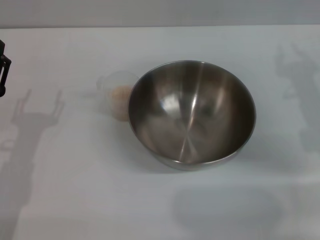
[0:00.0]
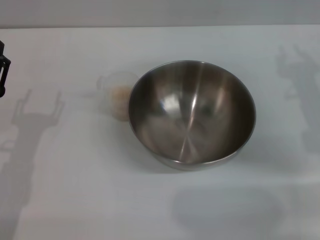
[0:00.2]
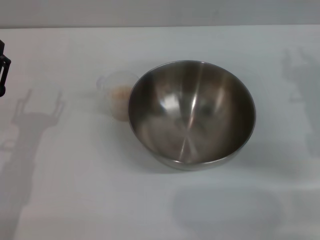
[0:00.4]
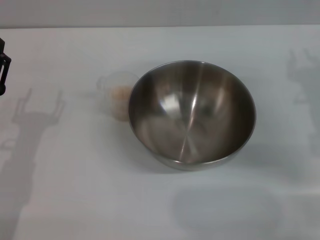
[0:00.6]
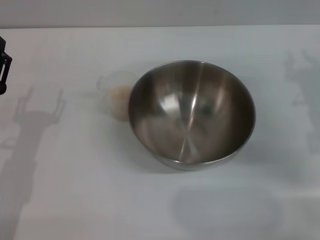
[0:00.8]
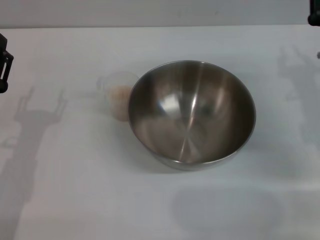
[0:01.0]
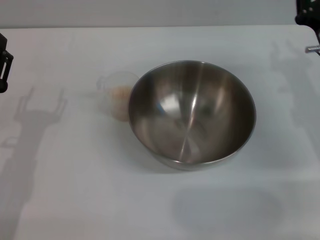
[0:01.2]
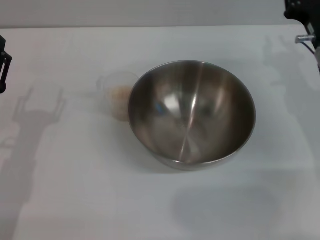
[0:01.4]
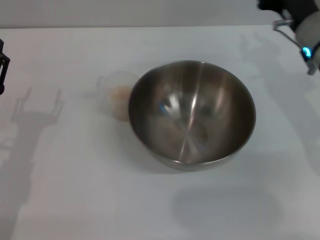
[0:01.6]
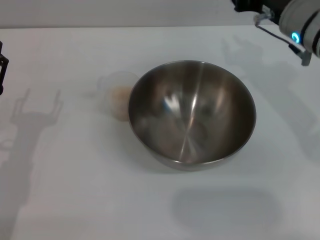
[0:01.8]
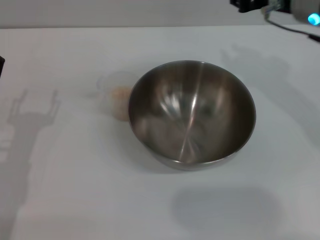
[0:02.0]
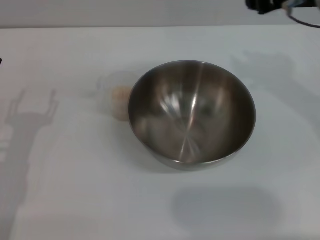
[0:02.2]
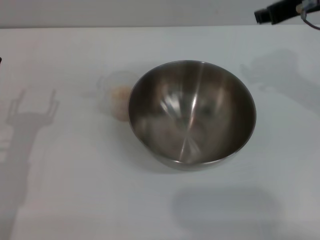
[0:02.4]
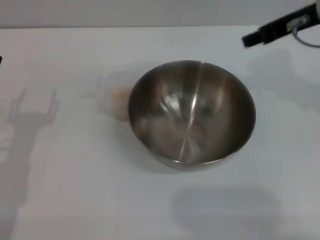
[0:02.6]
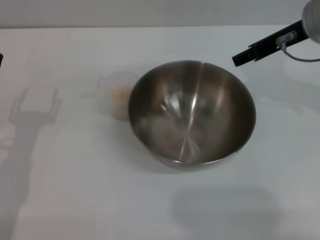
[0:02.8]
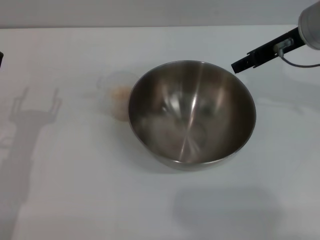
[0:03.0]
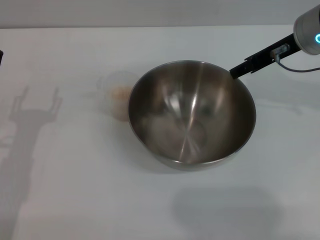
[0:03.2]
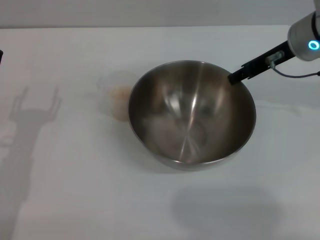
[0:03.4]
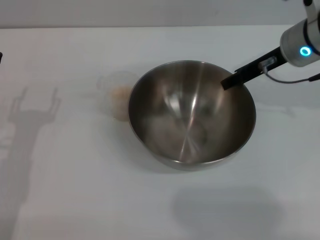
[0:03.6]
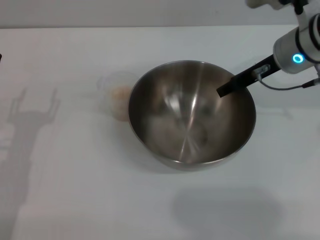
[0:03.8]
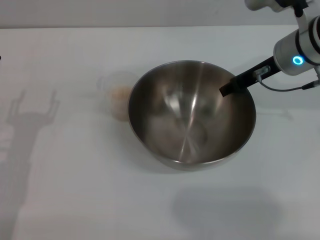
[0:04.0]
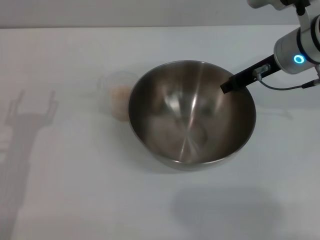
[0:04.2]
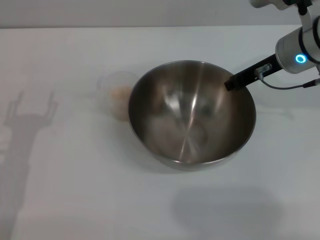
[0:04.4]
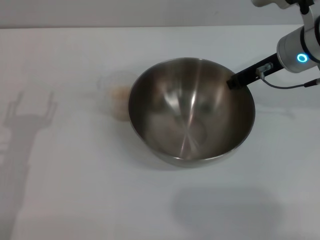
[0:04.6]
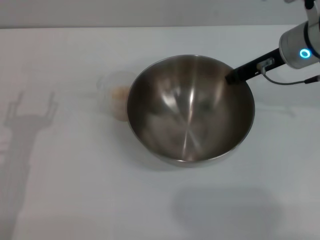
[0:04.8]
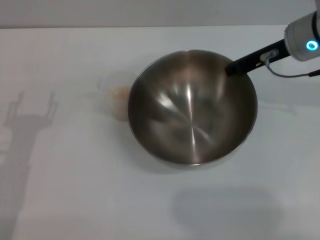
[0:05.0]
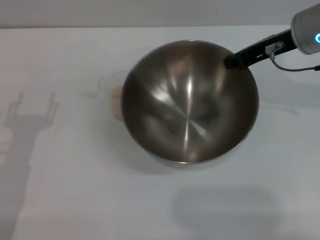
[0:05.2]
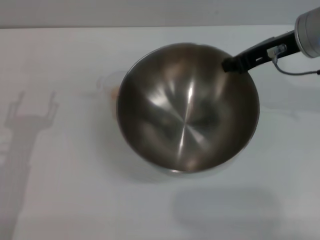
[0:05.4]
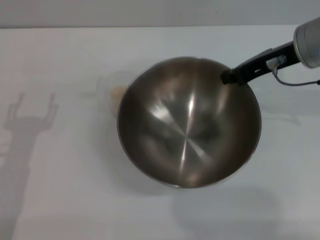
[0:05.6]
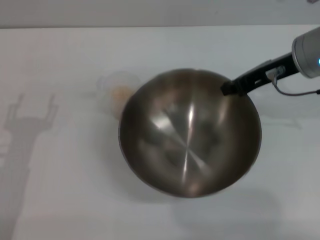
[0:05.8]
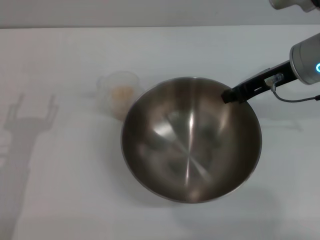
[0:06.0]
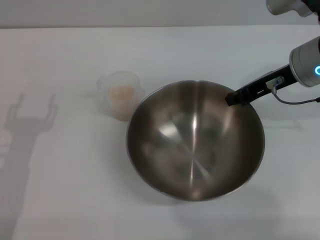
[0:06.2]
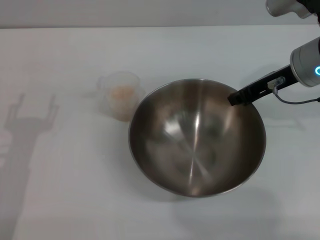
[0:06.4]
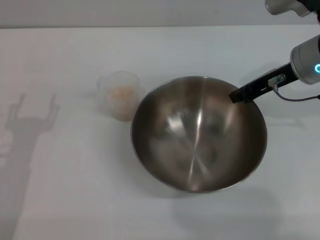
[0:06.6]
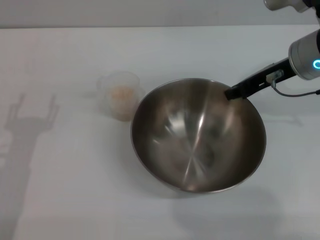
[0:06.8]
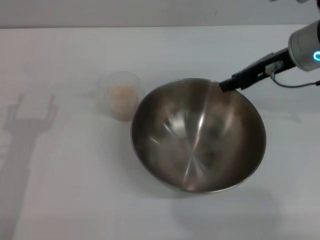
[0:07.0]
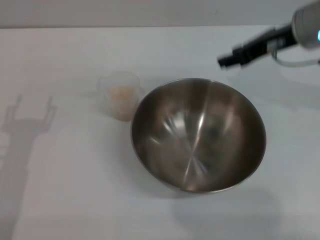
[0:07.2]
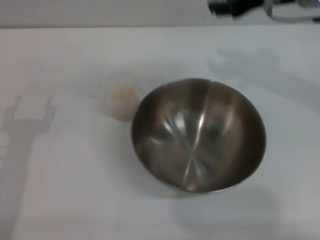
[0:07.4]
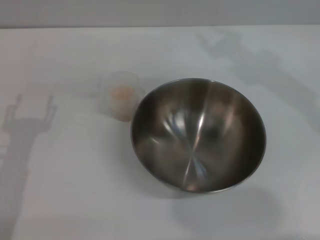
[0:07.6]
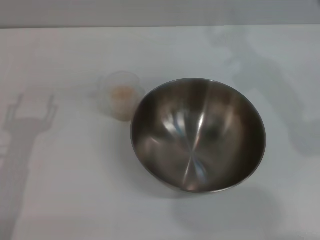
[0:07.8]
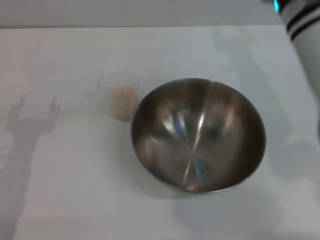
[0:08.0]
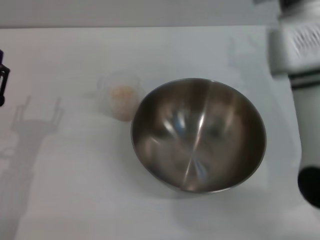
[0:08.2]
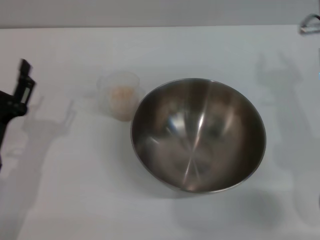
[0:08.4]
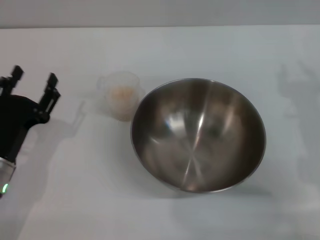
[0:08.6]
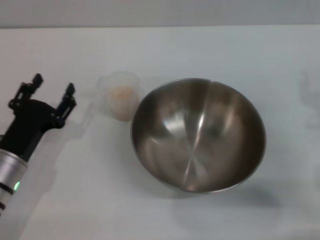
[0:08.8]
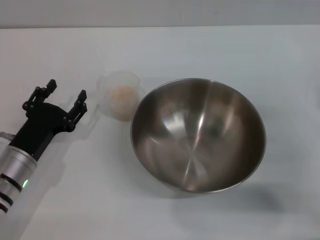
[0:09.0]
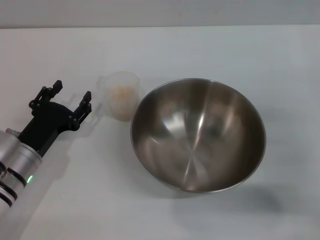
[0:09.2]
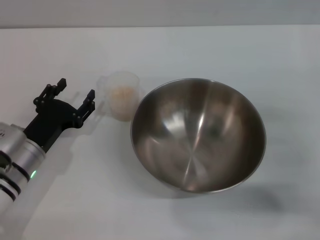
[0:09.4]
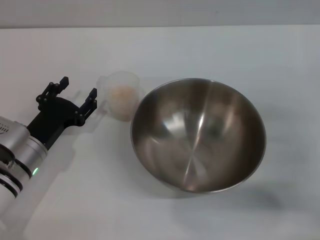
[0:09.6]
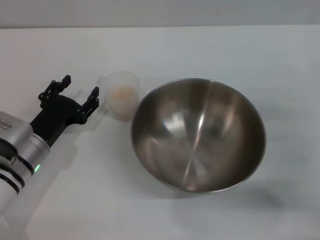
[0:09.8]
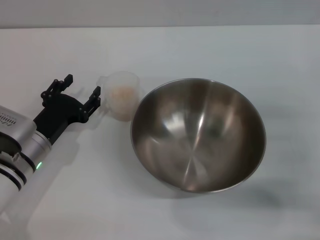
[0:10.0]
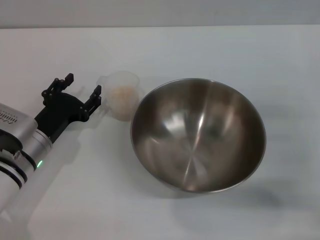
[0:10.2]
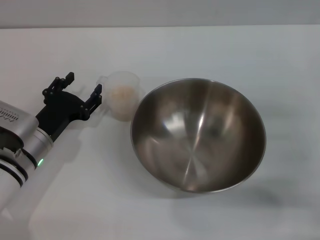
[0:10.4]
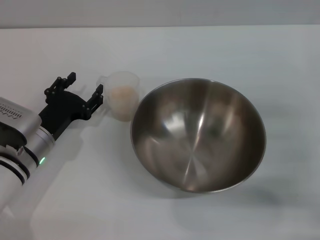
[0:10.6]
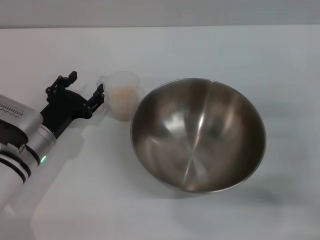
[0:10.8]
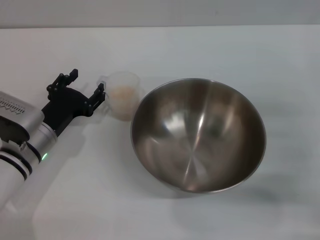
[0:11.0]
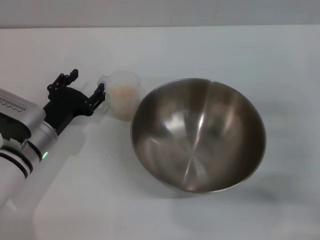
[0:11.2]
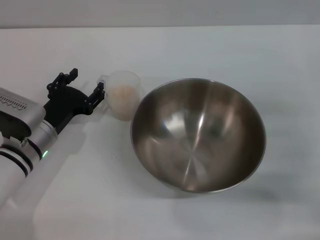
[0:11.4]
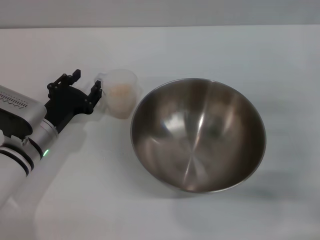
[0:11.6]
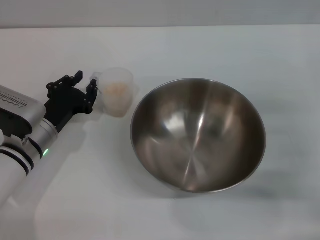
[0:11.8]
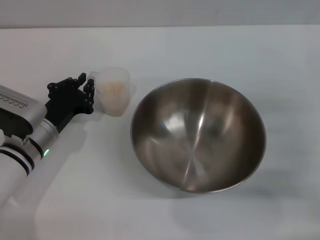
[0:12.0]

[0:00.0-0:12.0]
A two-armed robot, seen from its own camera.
Task of the whole recording: Place the bowl in the middle of the table with one hand and pour the rice from the grain cup into it with the other hand.
Step, 0:00.0 to 0:05.2: Pick up the bowl with the right gripper.
Step, 0:05.4 to 0:07.0: Place the bowl in the center of view with the right gripper.
0:00.0 to 0:01.6: The right gripper goes about 10 cm forward and to the left.
0:01.6 to 0:03.0: The right gripper moves upward, approximately 5 cm, and opens up.
0:03.0 to 0:04.4: The right gripper moves downward, about 5 cm, and closes.
0:06.0 to 0:07.6: The right gripper is displaced upward by some 10 cm, and opens.
0:07.6 to 0:09.0: The right gripper heads downward, backward and to the right, covering roughly 25 cm. The left gripper shifts roughly 5 cm downward.
0:09.0 to 0:10.4: The grippers stay close to where they were, moving slightly.
0:10.4 to 0:12.0: The left gripper closes.

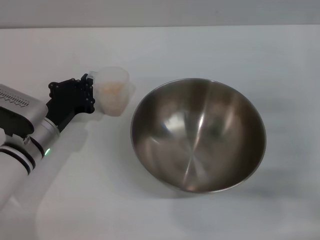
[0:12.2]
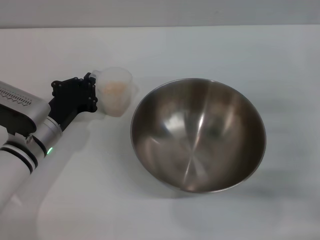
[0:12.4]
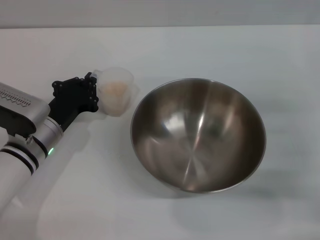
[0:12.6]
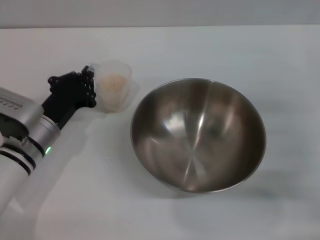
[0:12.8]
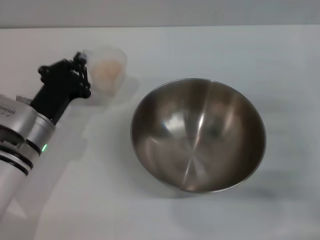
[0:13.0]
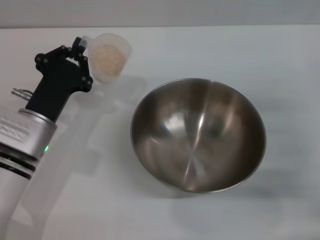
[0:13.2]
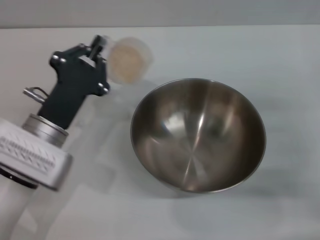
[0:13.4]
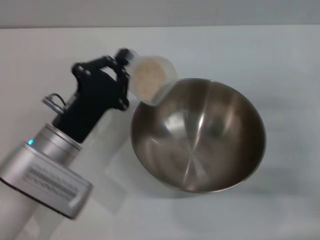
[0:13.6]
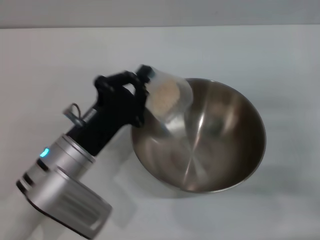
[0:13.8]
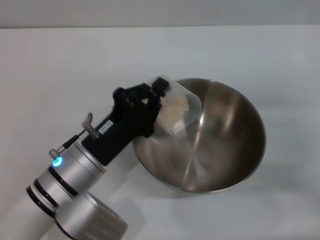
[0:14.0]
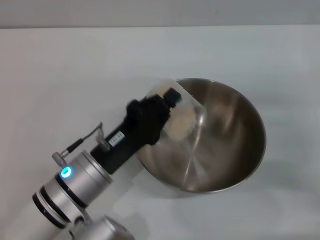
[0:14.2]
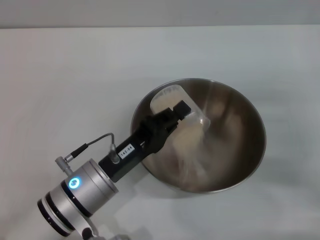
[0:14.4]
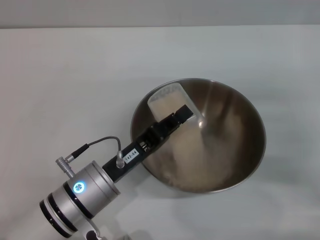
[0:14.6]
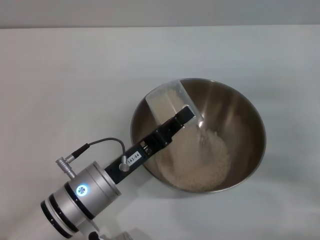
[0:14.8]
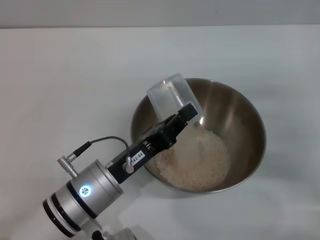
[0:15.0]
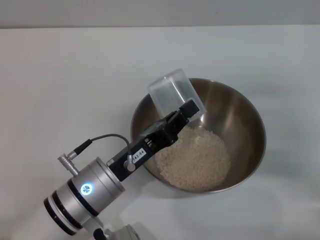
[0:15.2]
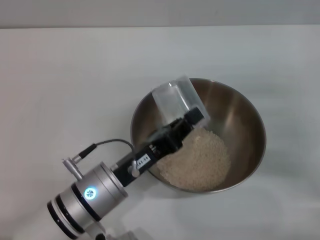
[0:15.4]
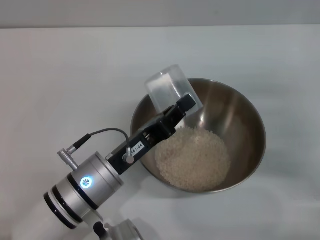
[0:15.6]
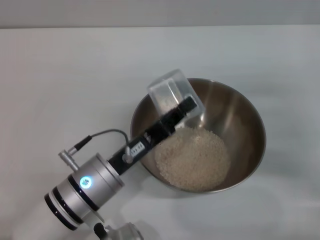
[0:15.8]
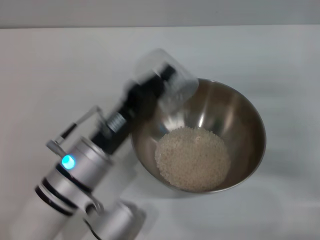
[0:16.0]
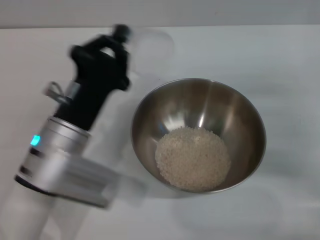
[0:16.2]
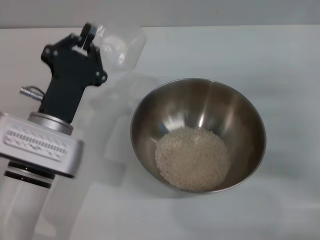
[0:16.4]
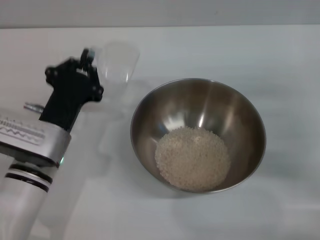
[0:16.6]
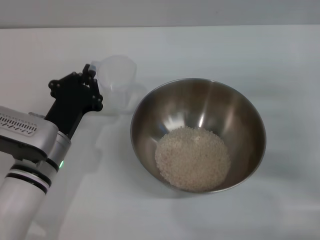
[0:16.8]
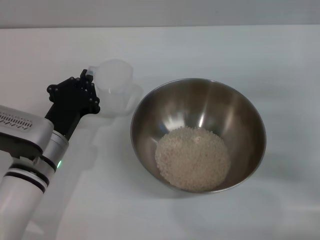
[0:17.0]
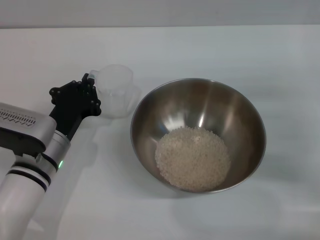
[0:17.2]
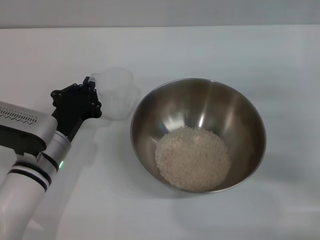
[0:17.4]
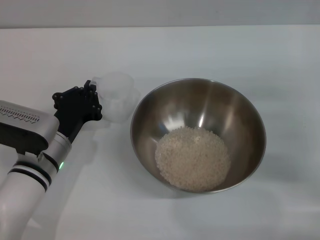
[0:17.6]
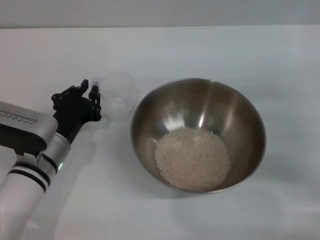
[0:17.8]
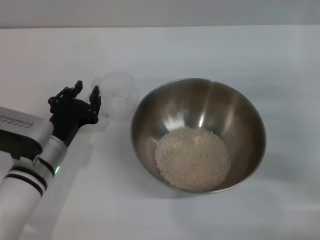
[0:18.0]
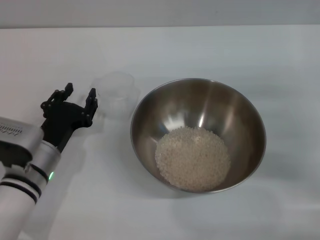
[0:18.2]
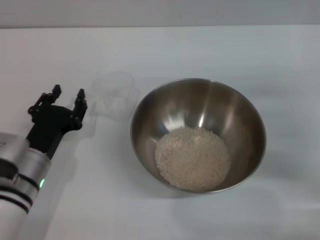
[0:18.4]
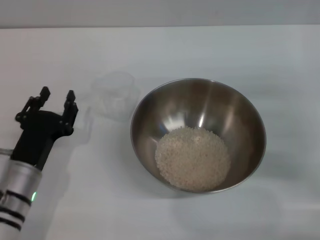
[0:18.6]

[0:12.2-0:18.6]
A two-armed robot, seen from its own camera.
Task of the whole recording: Place the bowl in the middle of the table with one hand and pour the rice from the grain cup into it with the other hand.
Step, 0:13.2 to 0:15.8: Pour the rice from the cup into the bowl with the left gripper.
Step, 0:16.0 to 0:18.2: Place the cup on the table with the left gripper.
0:12.2 to 0:13.8: The left gripper heads backward and to the right, covering about 10 cm.
0:13.8 to 0:15.4: The left gripper shifts by some 5 cm.
0:15.4 to 0:17.0: The left gripper travels to the left and forward by roughly 10 cm.
0:17.0 to 0:18.6: The left gripper changes place by some 5 cm, and opens its fingers.

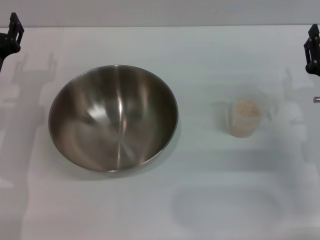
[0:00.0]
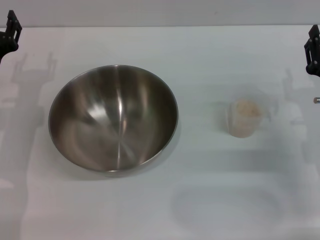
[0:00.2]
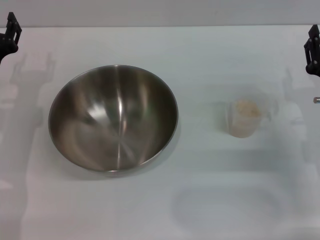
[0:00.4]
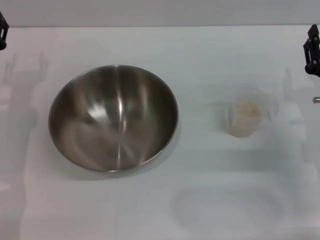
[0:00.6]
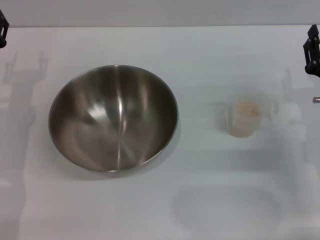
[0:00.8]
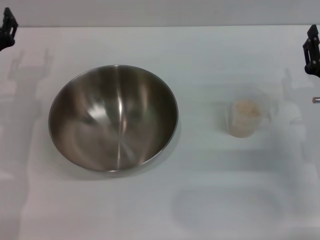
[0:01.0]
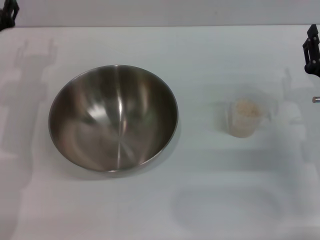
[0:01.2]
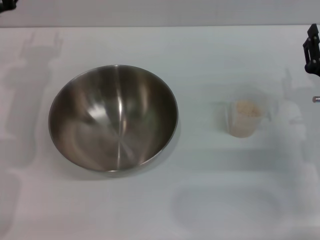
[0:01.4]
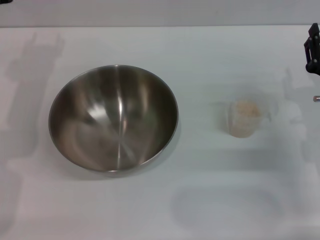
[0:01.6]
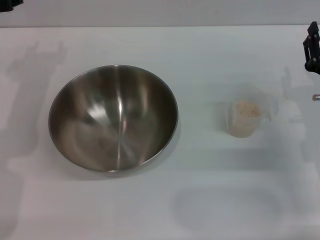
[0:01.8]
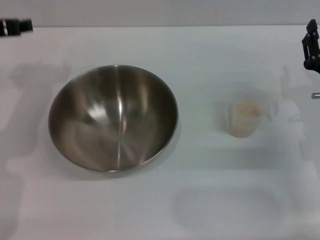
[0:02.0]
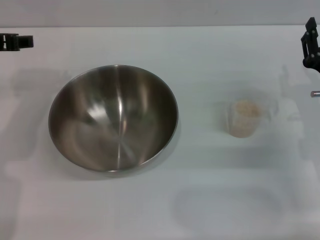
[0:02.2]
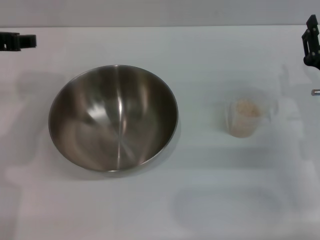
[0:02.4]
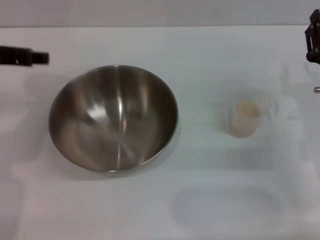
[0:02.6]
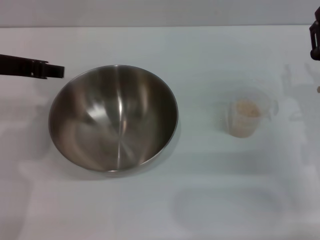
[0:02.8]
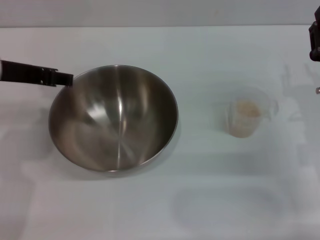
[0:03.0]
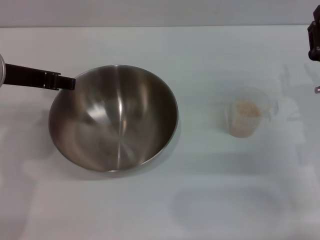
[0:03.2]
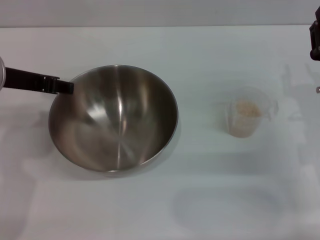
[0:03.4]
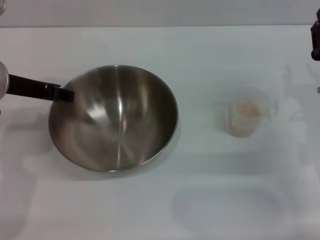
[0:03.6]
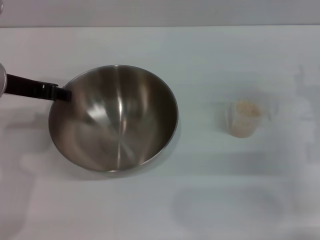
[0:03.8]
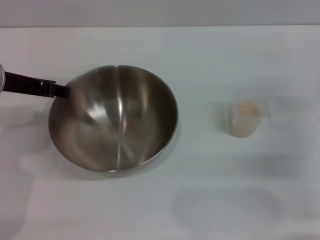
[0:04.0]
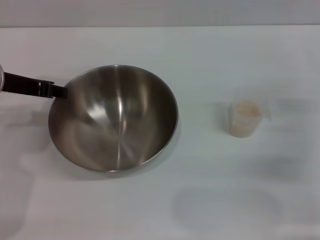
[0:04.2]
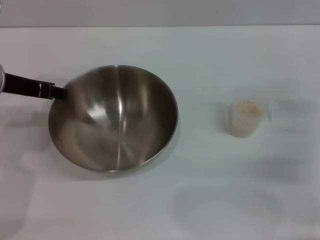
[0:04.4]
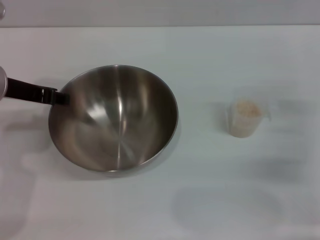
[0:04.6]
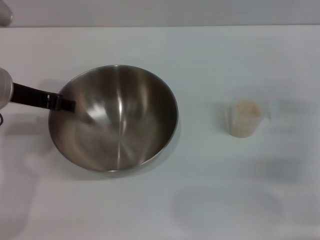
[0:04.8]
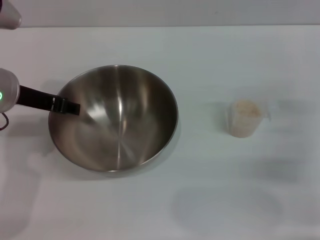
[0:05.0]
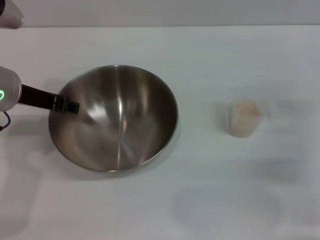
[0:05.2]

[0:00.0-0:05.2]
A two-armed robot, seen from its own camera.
Task of the whole recording: Place the bowl in the middle of the table with one hand and pour the rice from the grain cup into it with the other hand.
0:00.0 to 0:01.8: The left gripper travels upward by roughly 15 cm.
0:01.8 to 0:03.4: The left gripper shifts some 5 cm backward.
0:03.4 to 0:05.2: The grippers stay close to where they were, moving slightly.
